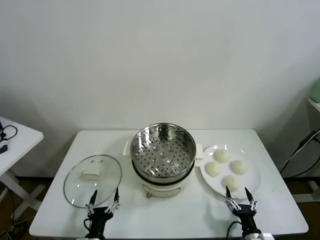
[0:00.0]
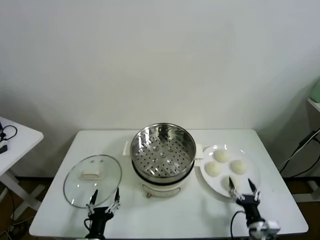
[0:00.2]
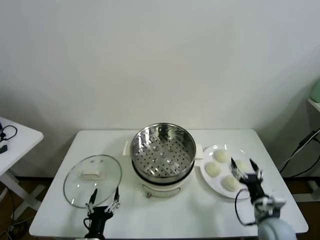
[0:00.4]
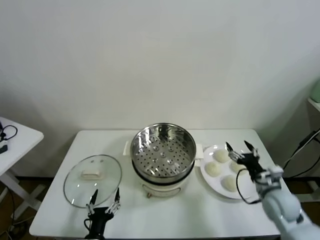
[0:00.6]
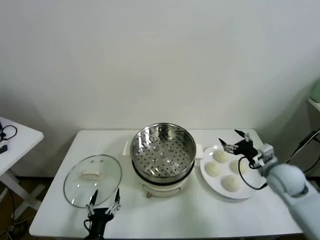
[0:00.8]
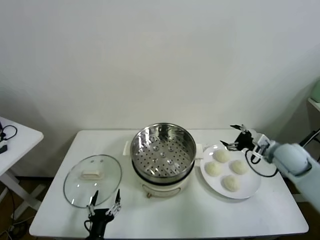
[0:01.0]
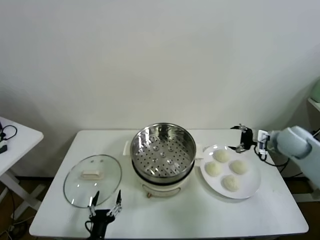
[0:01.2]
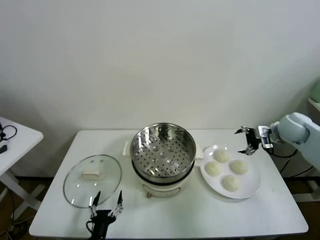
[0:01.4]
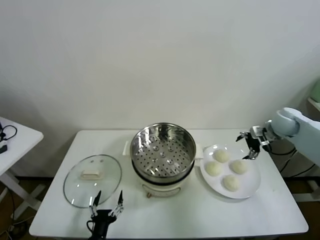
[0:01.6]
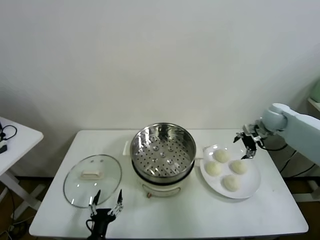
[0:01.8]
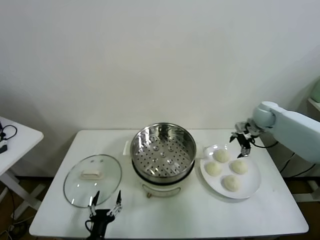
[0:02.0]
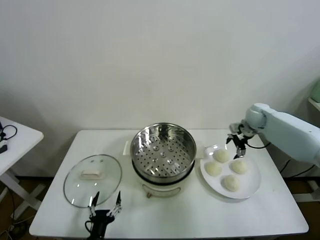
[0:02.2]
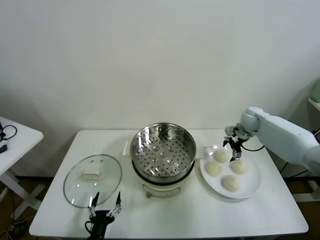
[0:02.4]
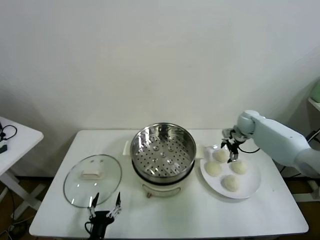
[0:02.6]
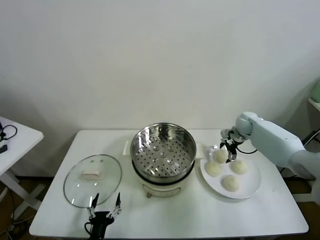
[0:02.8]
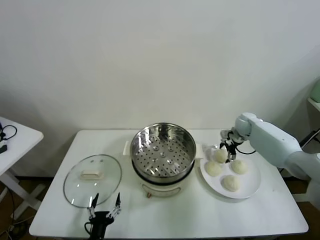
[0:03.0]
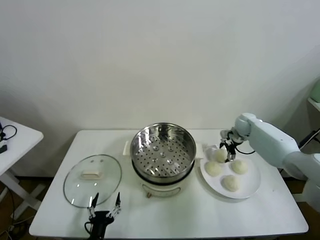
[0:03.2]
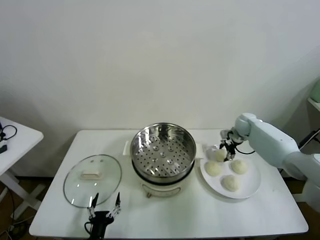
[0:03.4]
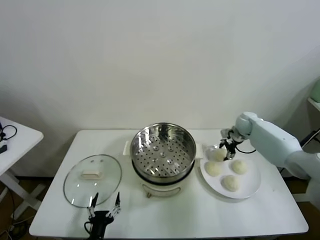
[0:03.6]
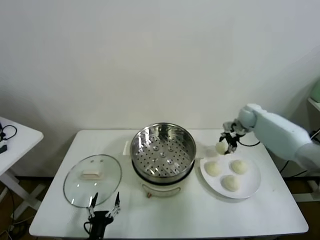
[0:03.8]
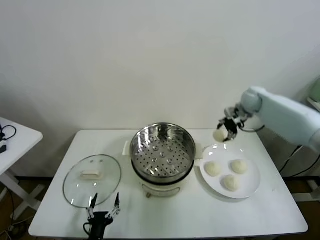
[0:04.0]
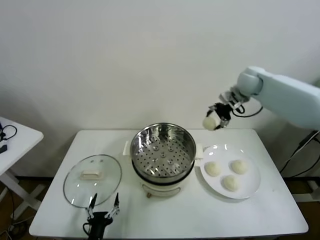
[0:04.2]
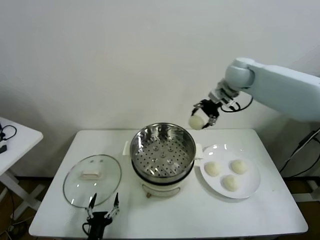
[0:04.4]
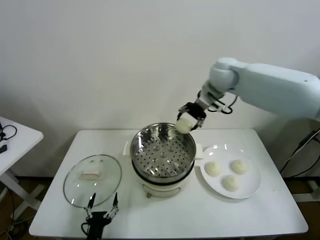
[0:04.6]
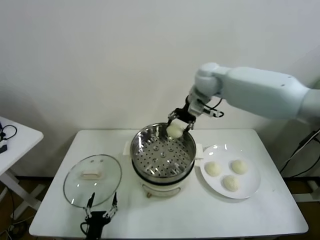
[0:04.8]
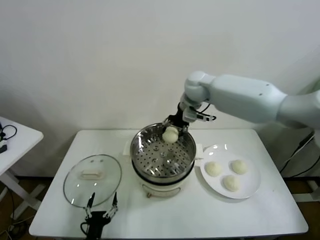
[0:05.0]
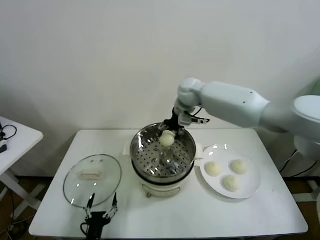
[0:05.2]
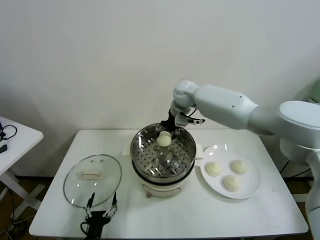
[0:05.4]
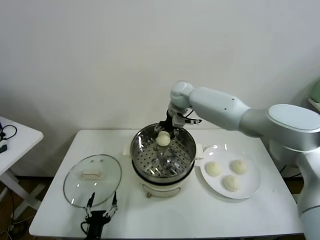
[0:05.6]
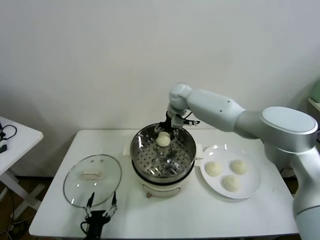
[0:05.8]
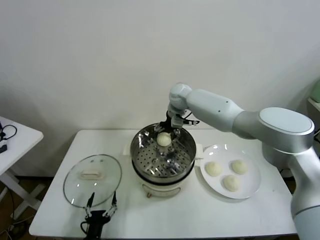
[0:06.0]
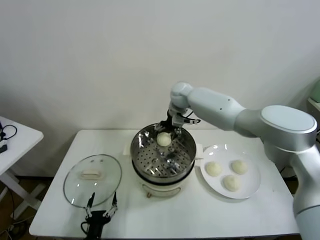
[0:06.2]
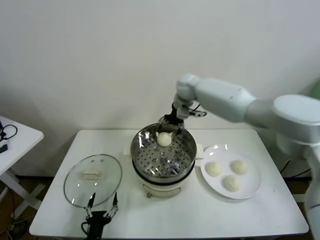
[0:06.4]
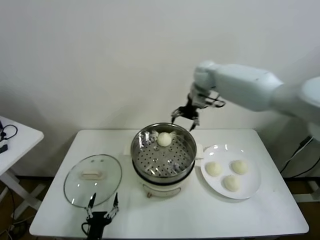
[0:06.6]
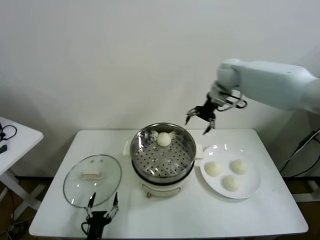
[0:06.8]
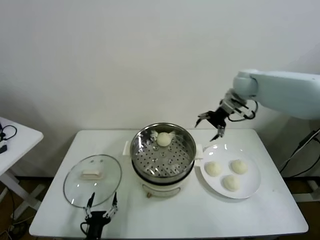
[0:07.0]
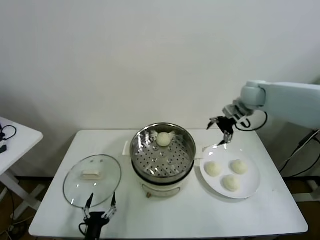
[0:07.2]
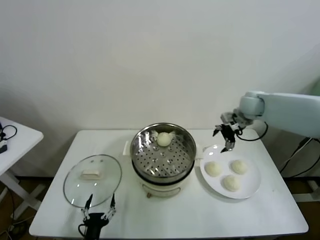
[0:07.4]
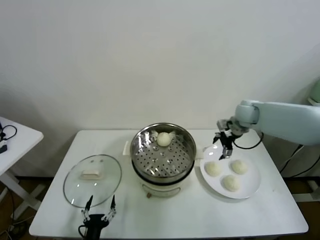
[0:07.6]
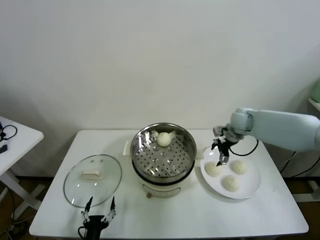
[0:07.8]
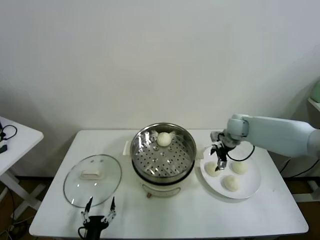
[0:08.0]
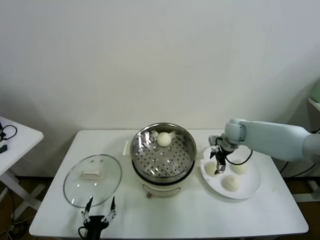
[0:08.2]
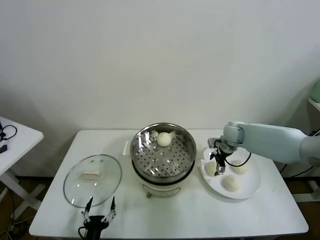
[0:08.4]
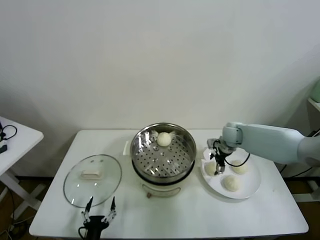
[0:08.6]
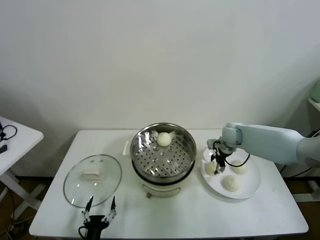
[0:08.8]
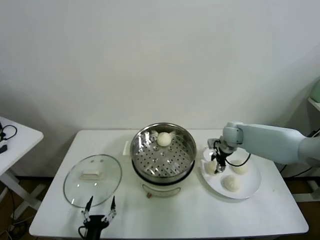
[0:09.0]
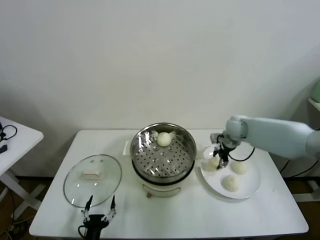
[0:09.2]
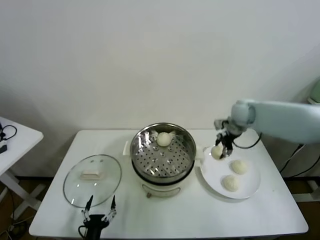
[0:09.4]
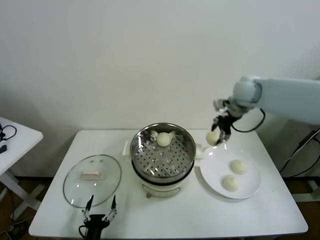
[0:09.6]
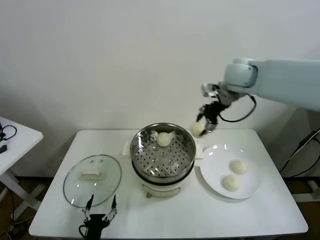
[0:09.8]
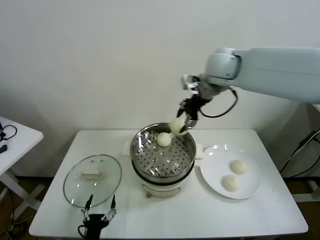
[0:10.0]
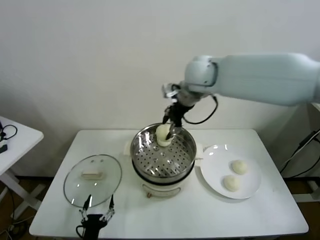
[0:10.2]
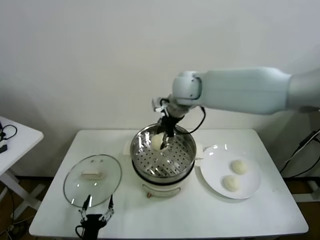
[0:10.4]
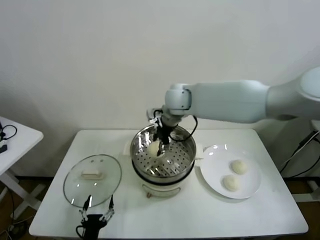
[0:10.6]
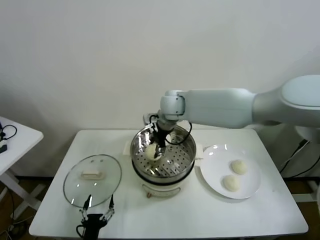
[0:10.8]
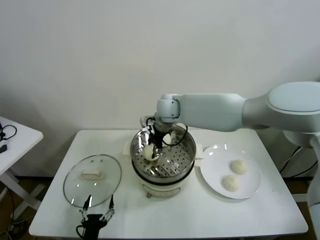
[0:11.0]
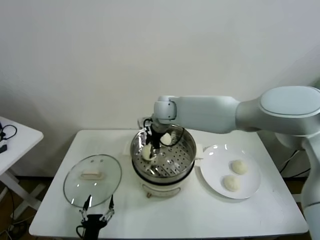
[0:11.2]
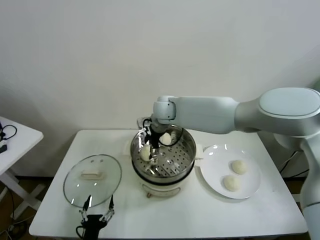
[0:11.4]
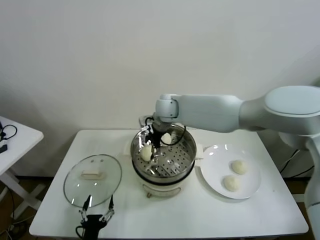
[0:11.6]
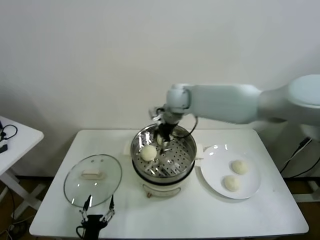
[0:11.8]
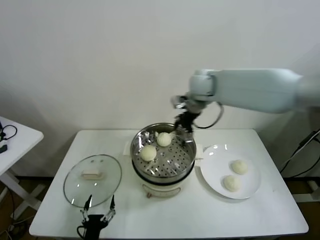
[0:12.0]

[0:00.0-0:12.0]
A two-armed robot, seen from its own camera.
Task of the whole recording: take steamed baozi put them in steamer.
Step, 0:00.0 to 0:03.2: Grasp the baozi in the plate with right gripper.
Step, 0:03.4 to 0:06.0: Place the baozi on the steamer with right gripper.
Step, 0:06.4 to 0:08.6: Grasp the baozi in the plate with right gripper.
Step, 0:09.0 to 0:11.4: Place the baozi on the steamer with right gripper.
0:01.6 to 0:03.0: The right gripper heads downward, forward and to the left, covering roughly 15 cm.
0:03.0 to 0:04.4: The right gripper moves upward and to the left, roughly 30 cm, and closes its fingers.
0:04.4 to 0:06.0: The right gripper is displaced to the left and downward by approximately 20 cm, and opens.
0:06.0 to 0:07.6: The right gripper shifts roughly 25 cm to the right.
0:07.6 to 0:09.0: The right gripper moves downward, some 10 cm, and closes.
0:09.0 to 0:10.4: The right gripper moves upward and to the left, roughly 30 cm.
0:10.4 to 0:12.0: The right gripper goes about 5 cm to the right, and opens.

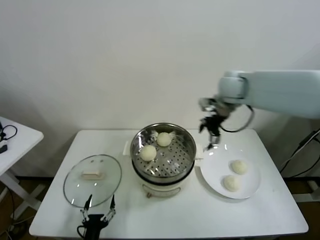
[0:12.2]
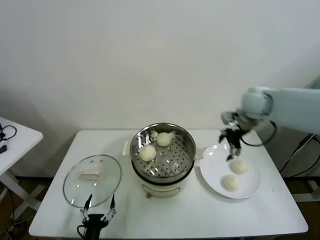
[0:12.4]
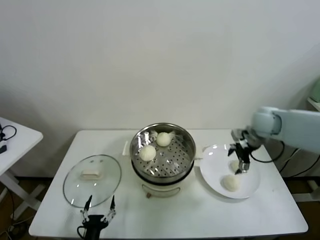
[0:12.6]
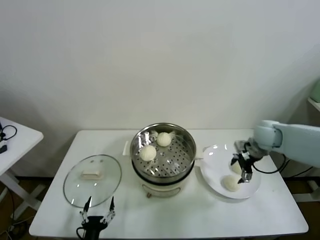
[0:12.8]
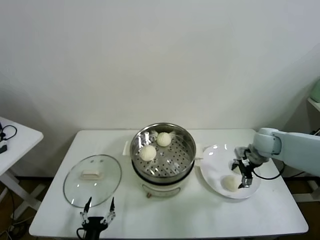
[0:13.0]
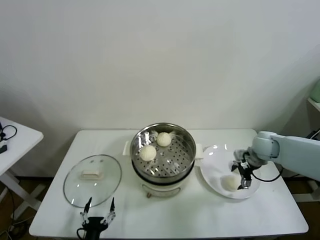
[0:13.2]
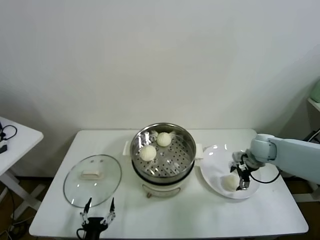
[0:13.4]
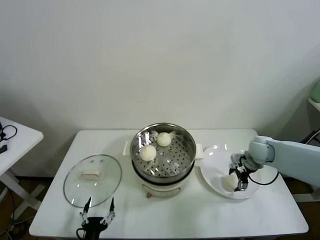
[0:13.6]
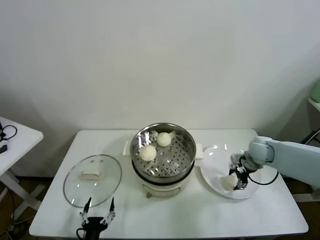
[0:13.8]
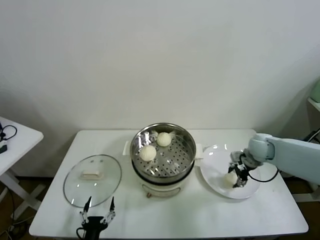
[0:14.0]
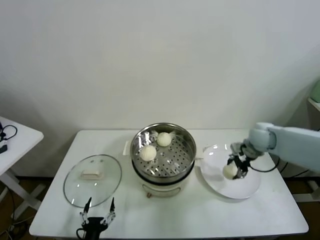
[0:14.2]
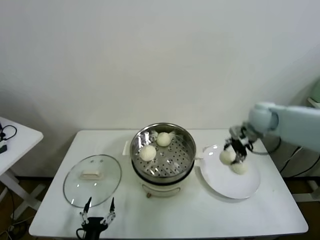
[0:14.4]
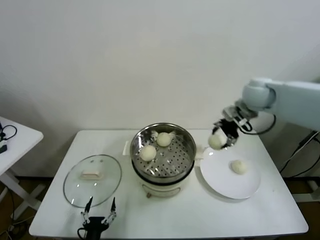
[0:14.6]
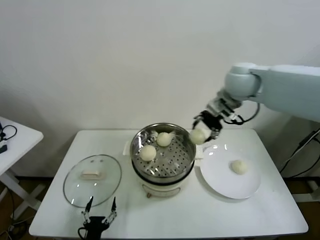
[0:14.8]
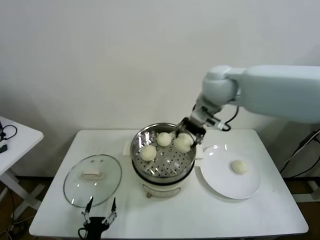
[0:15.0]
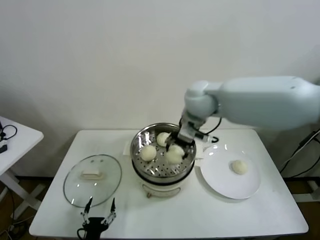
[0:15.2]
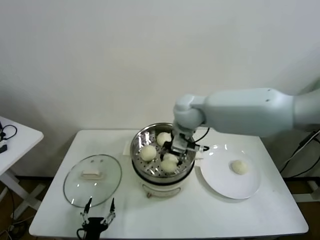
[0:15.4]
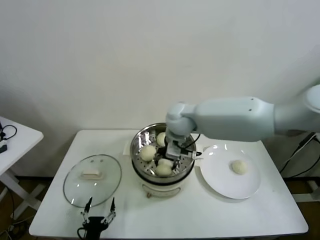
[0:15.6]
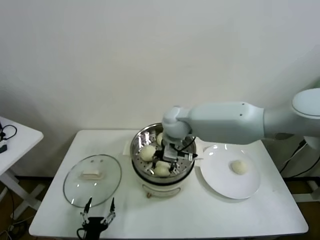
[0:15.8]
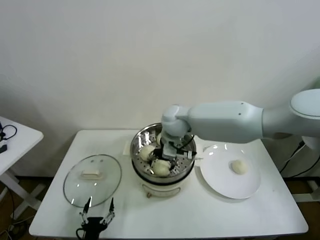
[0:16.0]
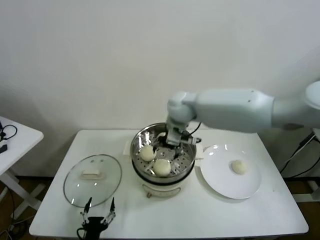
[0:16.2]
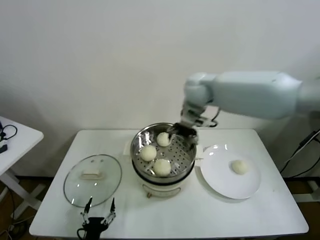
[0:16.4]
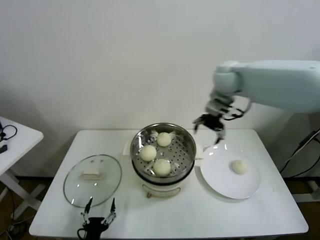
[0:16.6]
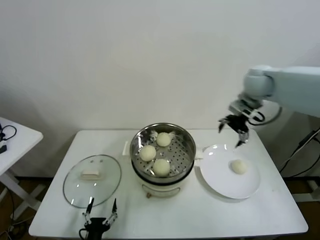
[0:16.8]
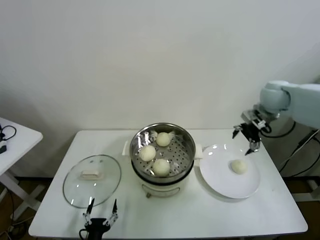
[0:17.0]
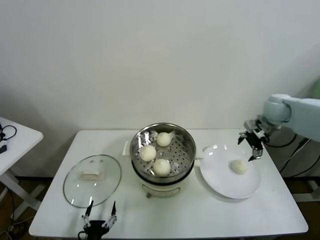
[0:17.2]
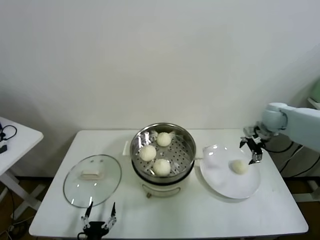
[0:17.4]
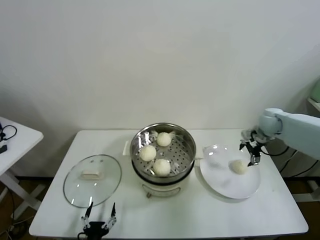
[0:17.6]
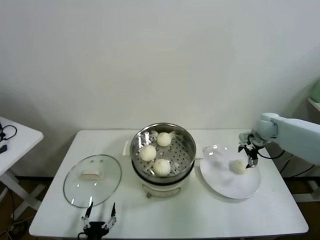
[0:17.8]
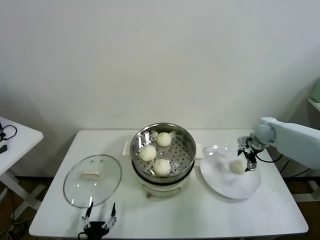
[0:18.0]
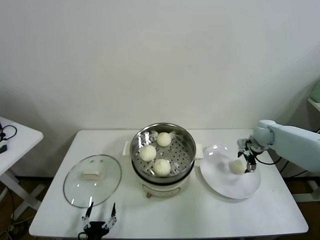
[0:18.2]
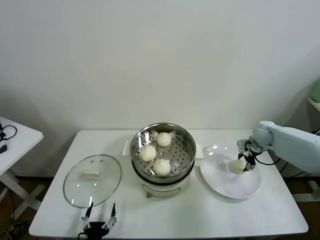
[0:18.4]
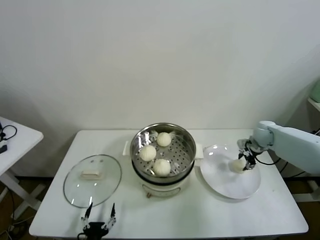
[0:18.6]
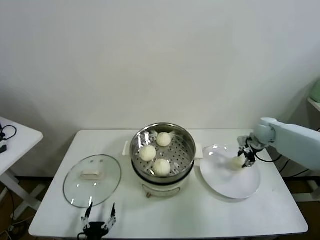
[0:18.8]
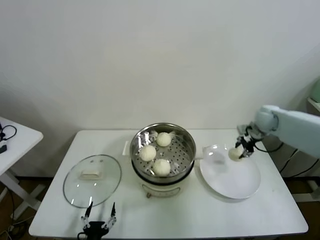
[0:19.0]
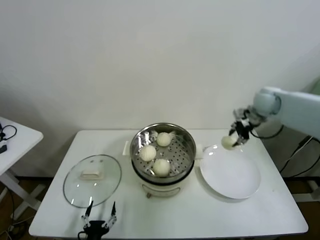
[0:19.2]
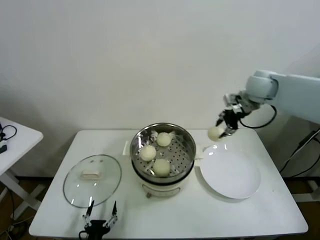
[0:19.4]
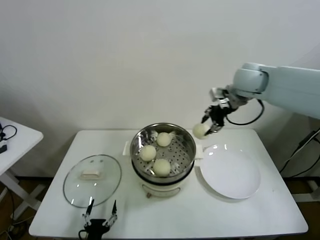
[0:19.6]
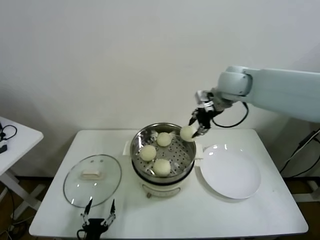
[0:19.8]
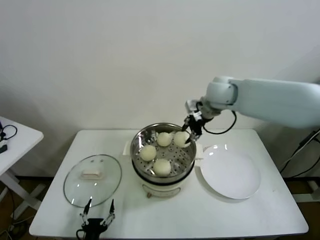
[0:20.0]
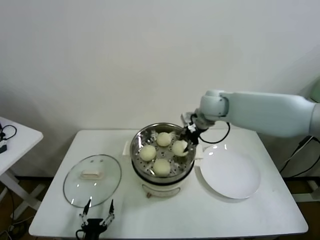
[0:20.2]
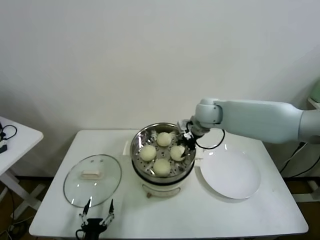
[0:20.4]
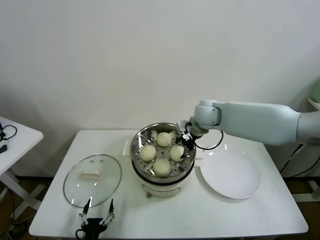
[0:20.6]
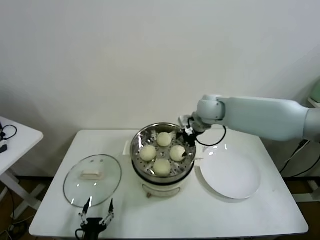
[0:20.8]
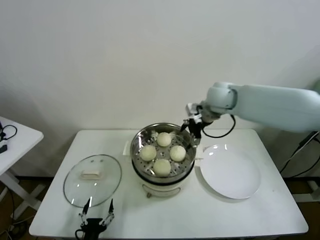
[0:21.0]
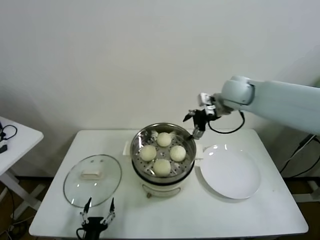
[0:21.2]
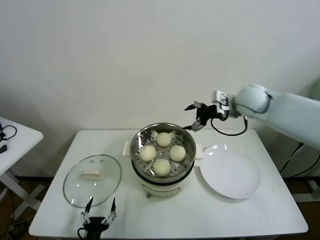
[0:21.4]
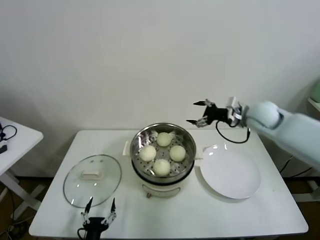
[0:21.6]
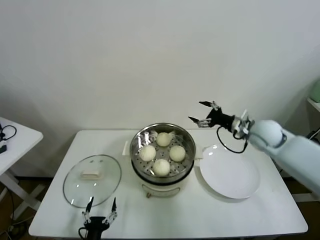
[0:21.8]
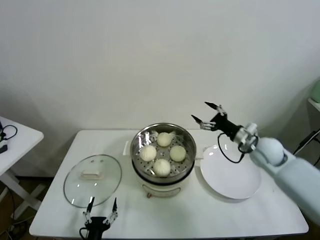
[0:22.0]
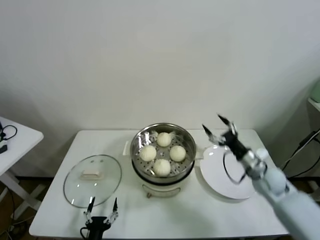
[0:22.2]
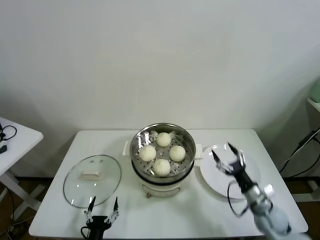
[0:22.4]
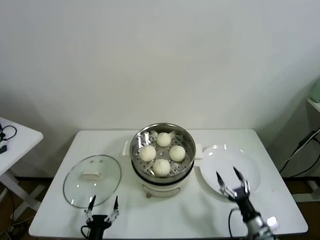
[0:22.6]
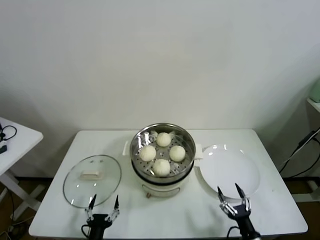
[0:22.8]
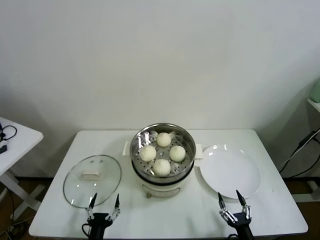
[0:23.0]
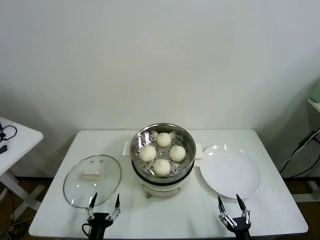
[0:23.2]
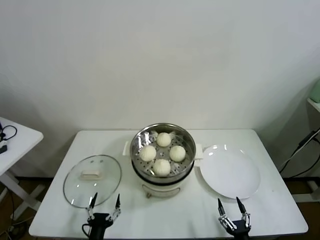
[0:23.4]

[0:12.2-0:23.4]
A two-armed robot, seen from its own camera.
Task of the whole recording: take steamed baozi put them in steamer.
Step, 0:12.2 to 0:13.6: Grasp the baozi in the plate with right gripper.
Step, 0:13.8 to 0:16.0: Place the baozi on the steamer with right gripper.
Step, 0:16.2 to 0:18.2: Grasp the baozi in the plate with right gripper.
Step, 0:18.4 to 0:20.6: Place the baozi on the steamer with right gripper.
0:12.2 to 0:13.8: The right gripper heads downward and to the right, covering some 25 cm, and closes up.
0:13.8 to 0:15.4: The right gripper goes roughly 35 cm to the left and upward.
0:15.4 to 0:17.0: The right gripper moves to the right, approximately 25 cm, and opens up.
0:17.0 to 0:18.6: The right gripper travels downward by approximately 20 cm, and closes up.
0:18.6 to 0:20.2: The right gripper heads to the left and upward, covering some 30 cm.
0:20.2 to 0:21.8: The right gripper heads to the right and downward, covering approximately 20 cm, and opens its fingers.
0:21.8 to 0:23.4: The right gripper goes about 50 cm backward and downward.
